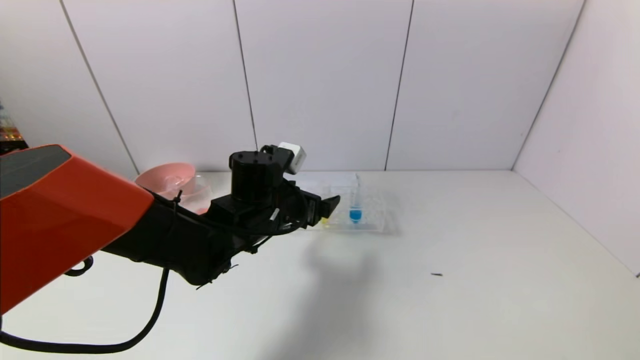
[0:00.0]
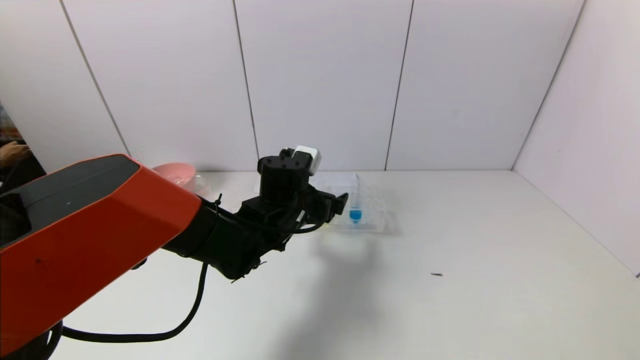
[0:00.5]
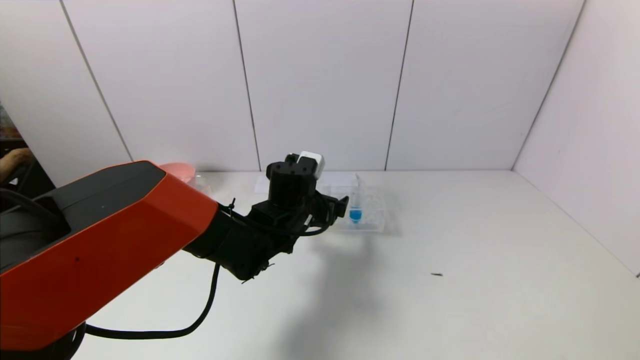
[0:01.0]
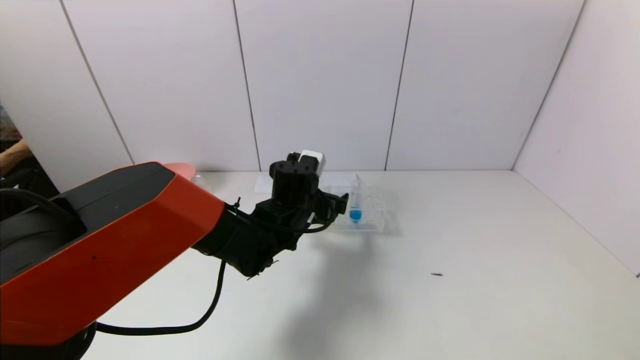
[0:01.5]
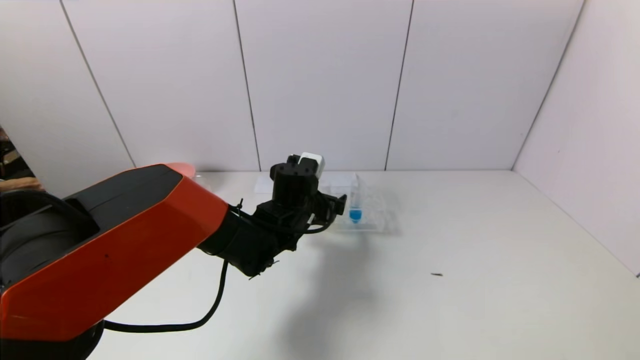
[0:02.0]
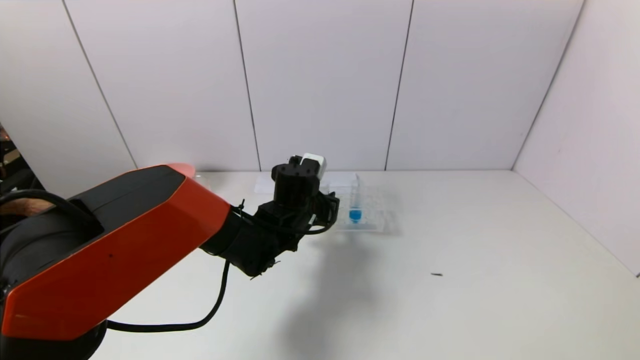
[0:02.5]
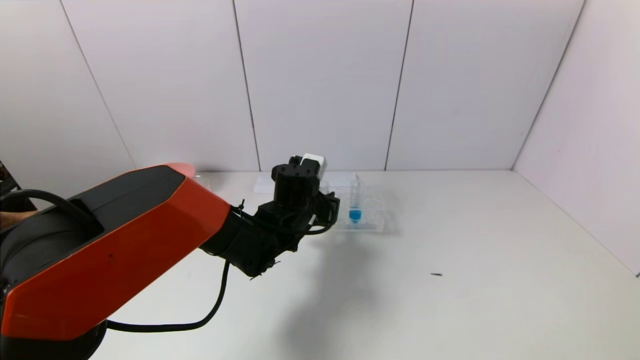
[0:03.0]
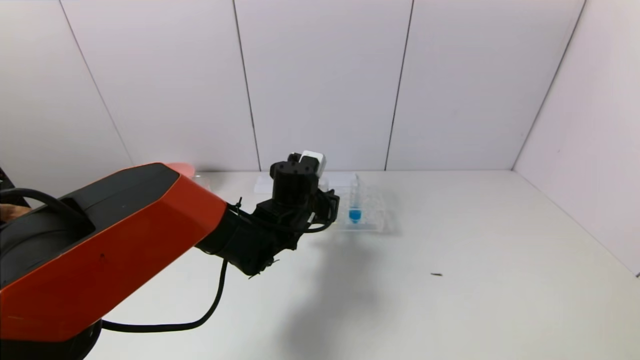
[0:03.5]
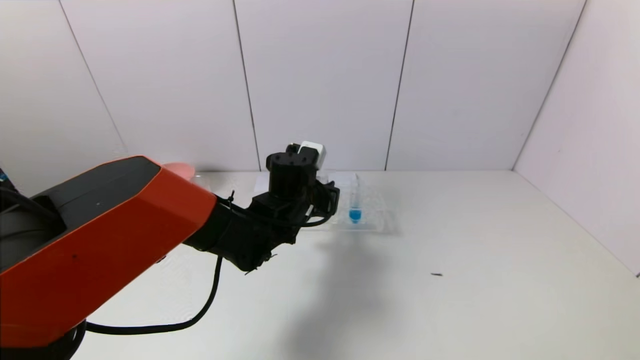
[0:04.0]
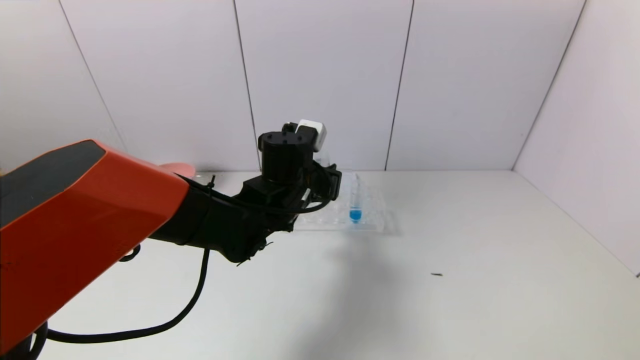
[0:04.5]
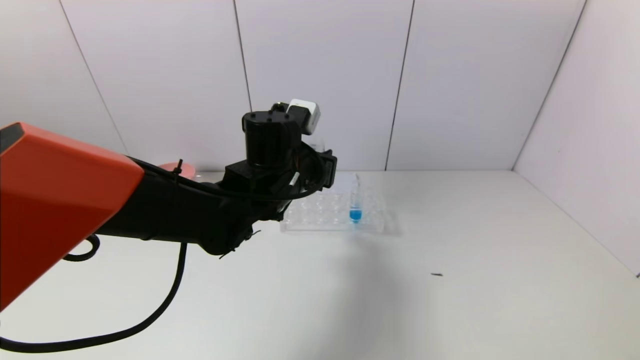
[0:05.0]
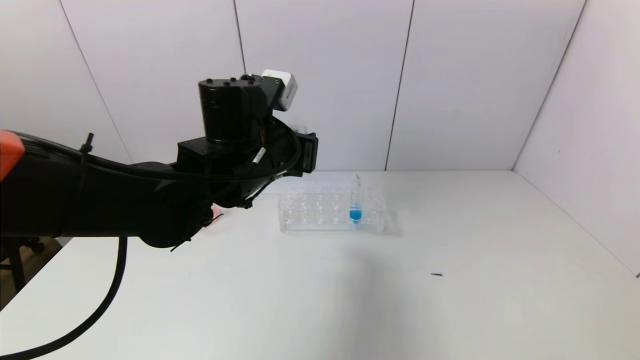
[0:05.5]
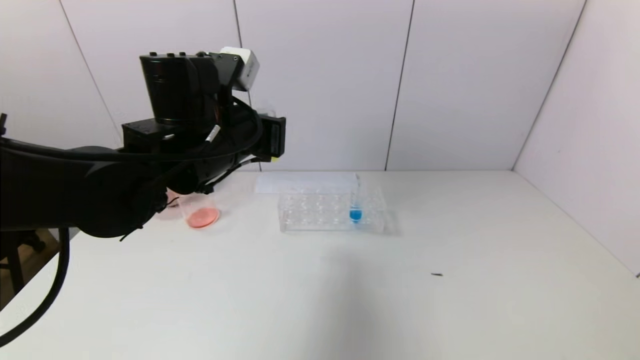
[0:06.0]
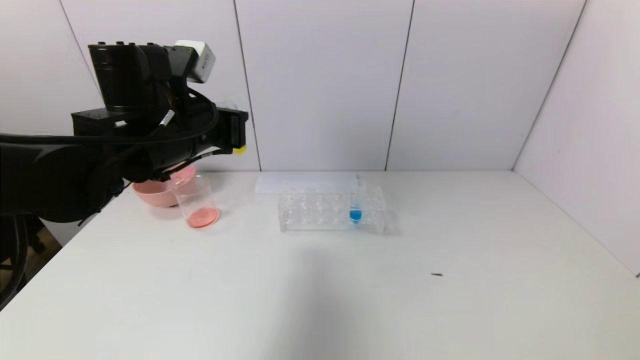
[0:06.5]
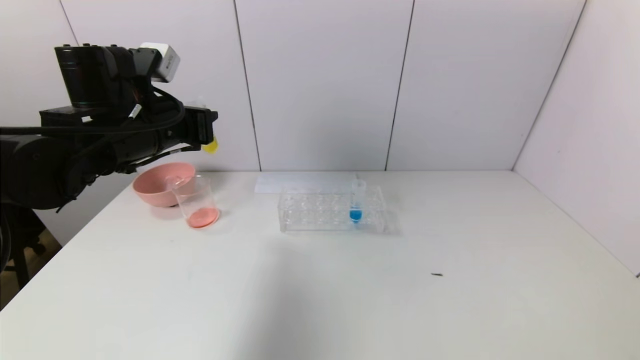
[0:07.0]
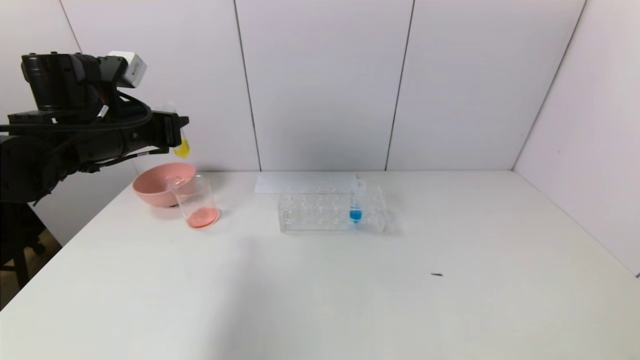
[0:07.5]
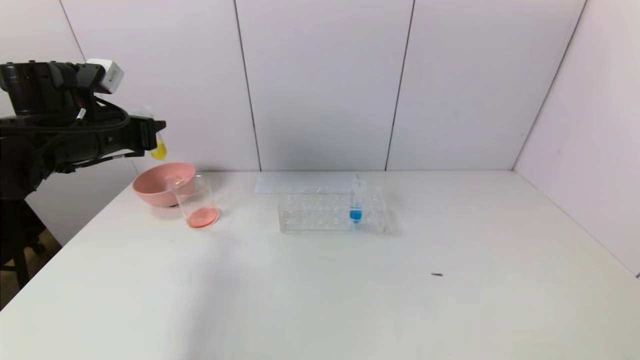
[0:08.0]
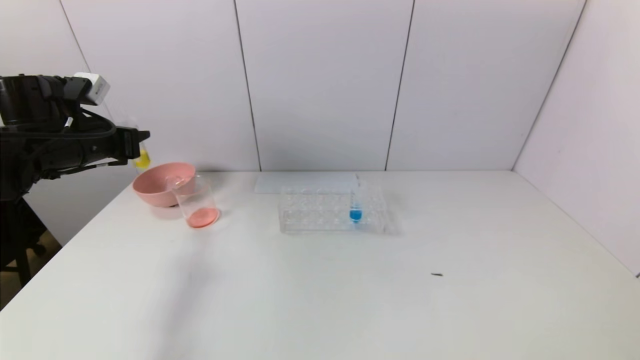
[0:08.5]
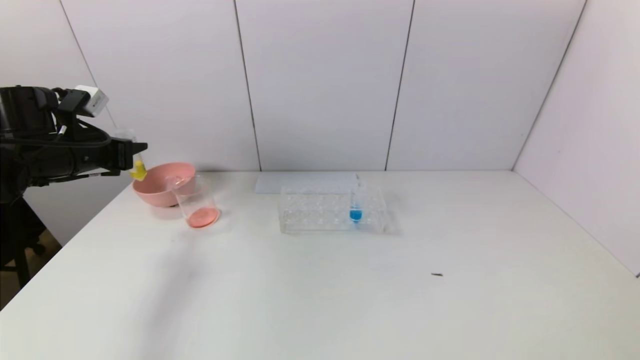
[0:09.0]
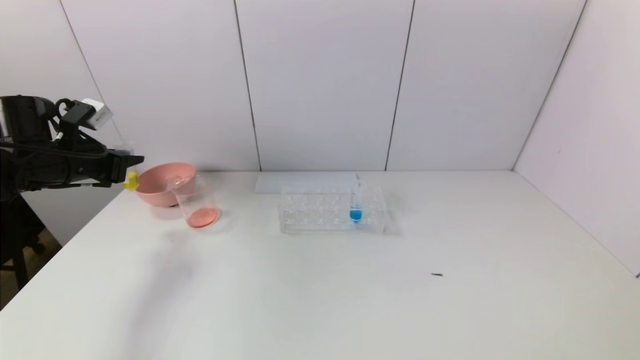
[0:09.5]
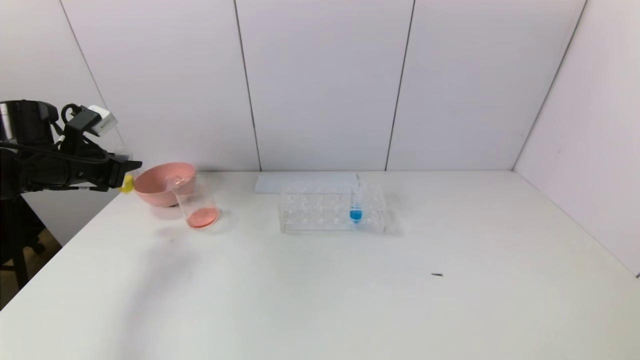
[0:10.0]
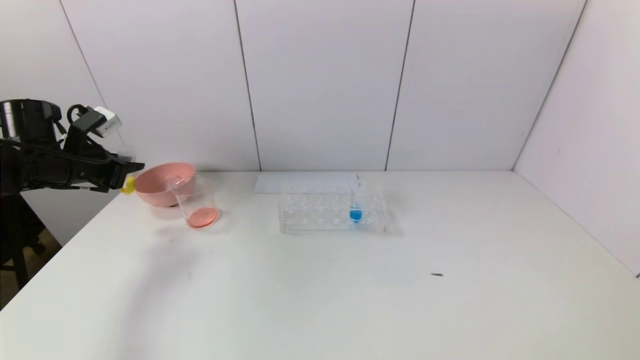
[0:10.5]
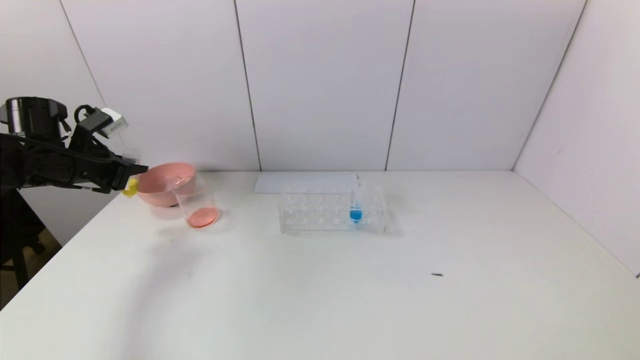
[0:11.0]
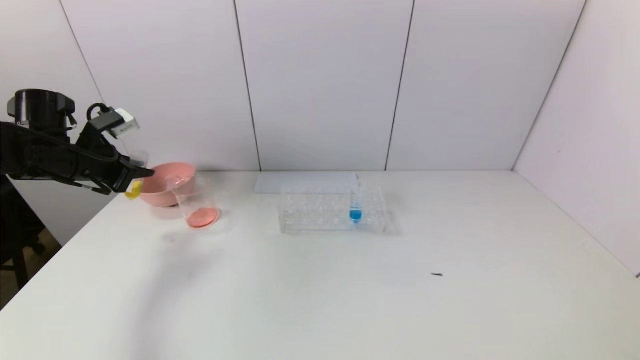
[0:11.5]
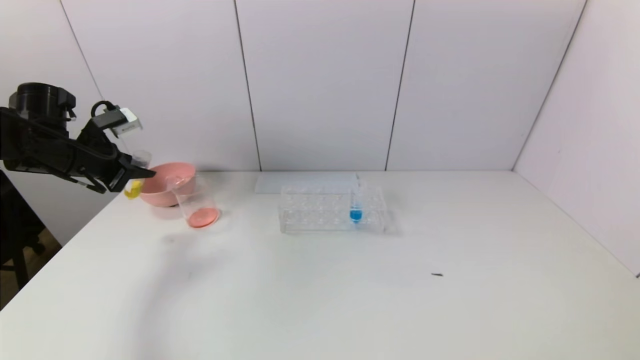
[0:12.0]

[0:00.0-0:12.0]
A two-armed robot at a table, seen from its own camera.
Task of the whole recording: pick up the test tube with yellow pigment and the test tube with red pigment by grippers and pour them into the beaker.
Step, 0:00.0 to 0:02.5: Grasp the yellow reagent with the left gripper.
0:00.0 to 0:02.0: The left gripper ends up approximately 5 cm from where it was.
0:02.0 to 0:04.0: The left gripper closes up.
0:04.0 to 0:06.0: The left gripper heads upward, to the left and backward, covering roughly 15 cm.
0:06.0 to 0:08.0: The left gripper travels to the left by about 20 cm.
0:08.0 to 0:10.0: The left gripper is displaced to the left and downward by about 10 cm.

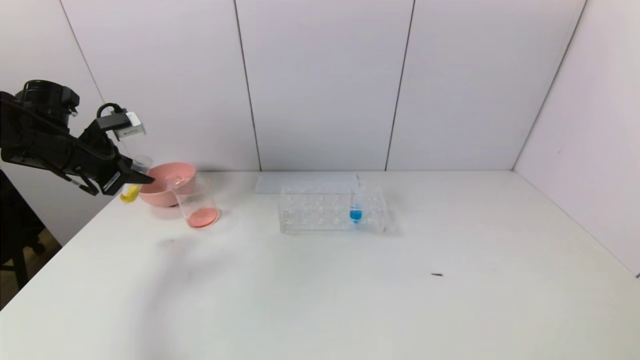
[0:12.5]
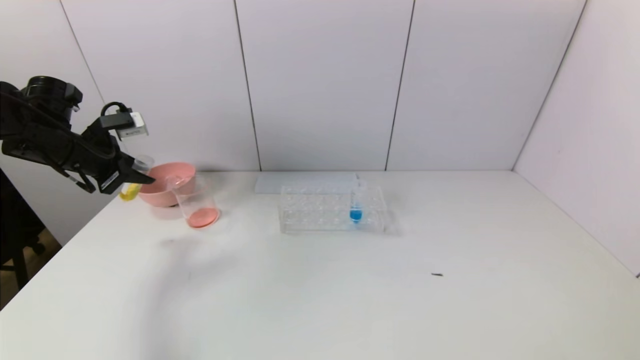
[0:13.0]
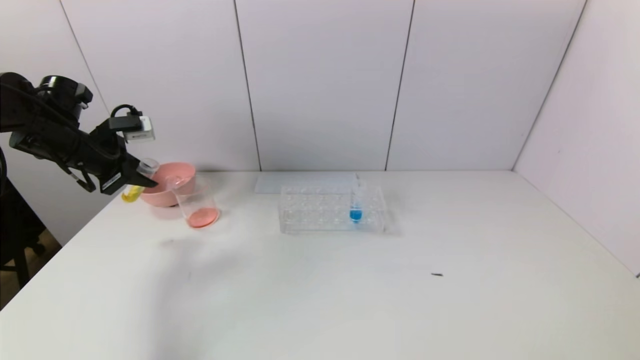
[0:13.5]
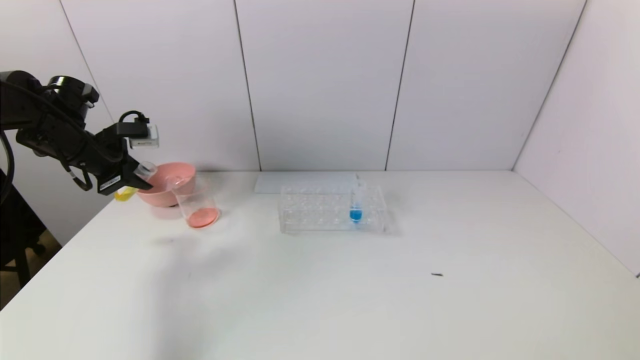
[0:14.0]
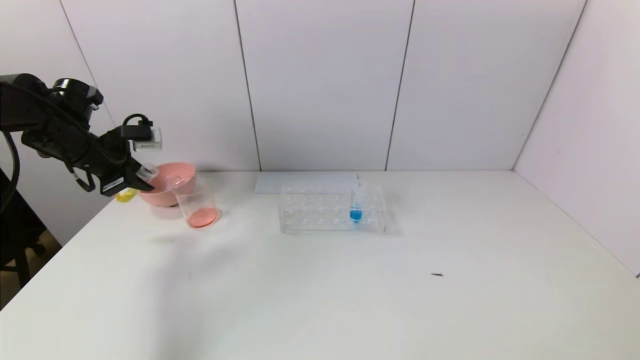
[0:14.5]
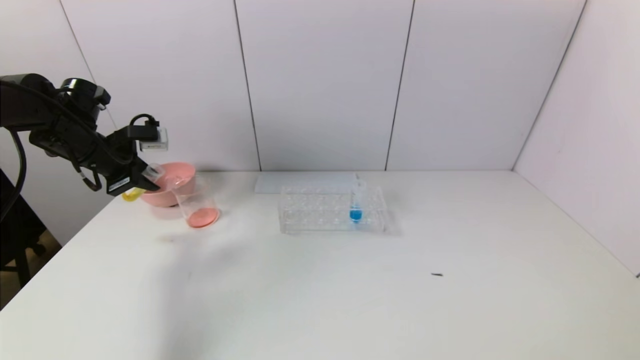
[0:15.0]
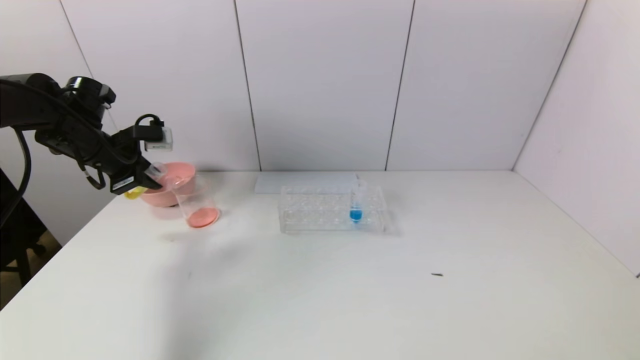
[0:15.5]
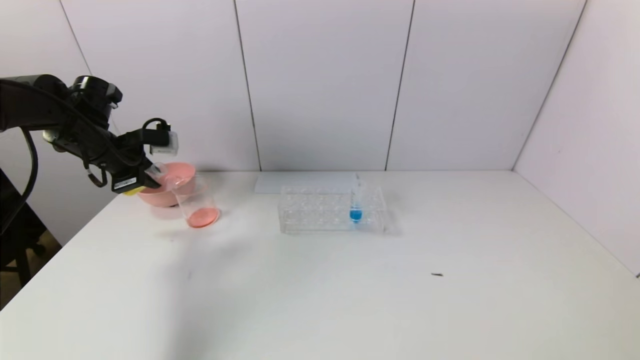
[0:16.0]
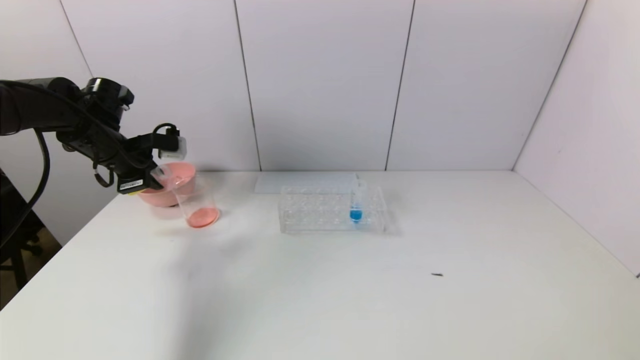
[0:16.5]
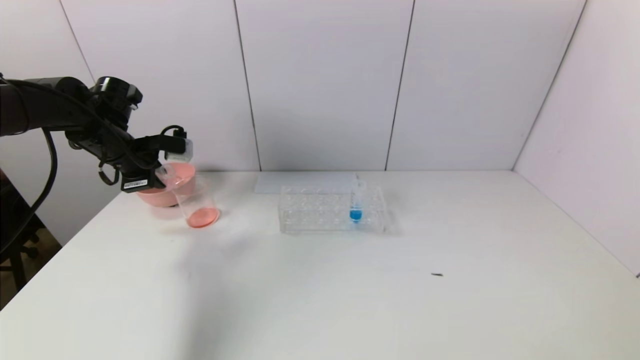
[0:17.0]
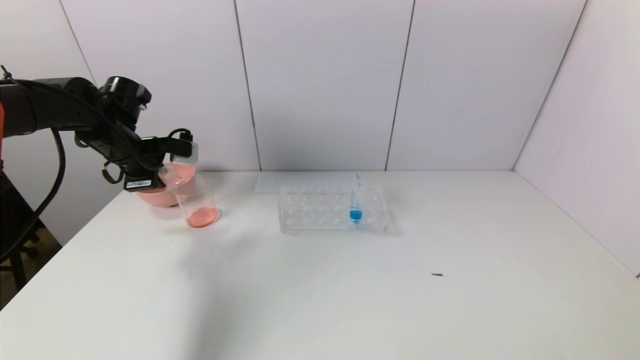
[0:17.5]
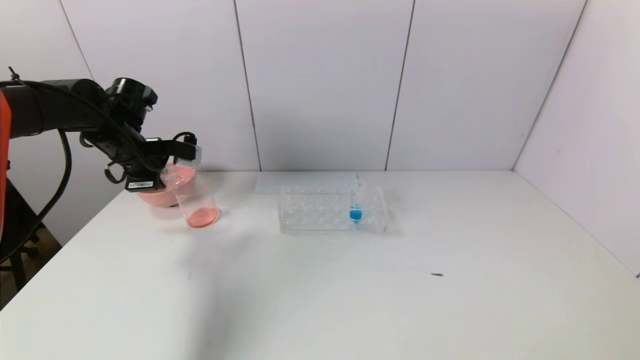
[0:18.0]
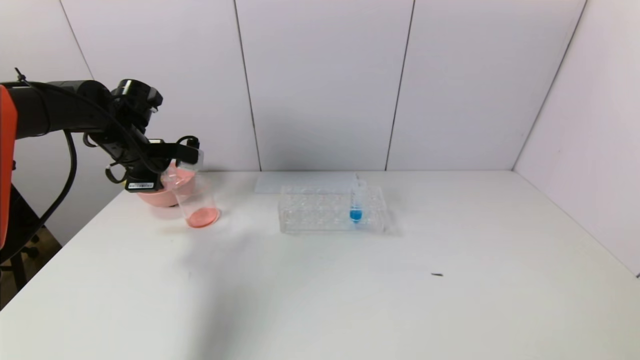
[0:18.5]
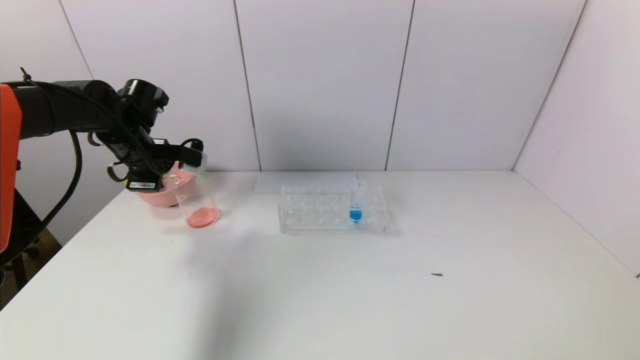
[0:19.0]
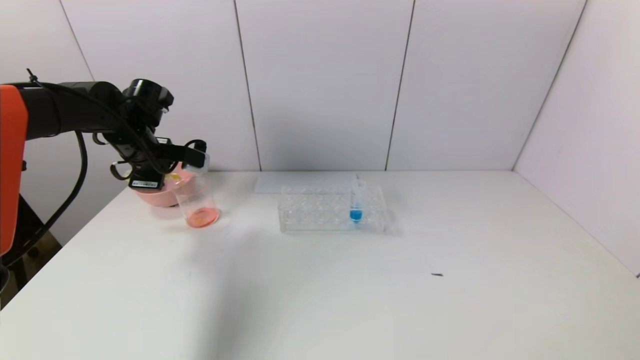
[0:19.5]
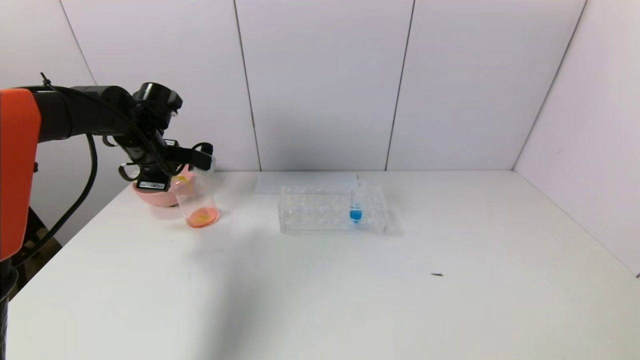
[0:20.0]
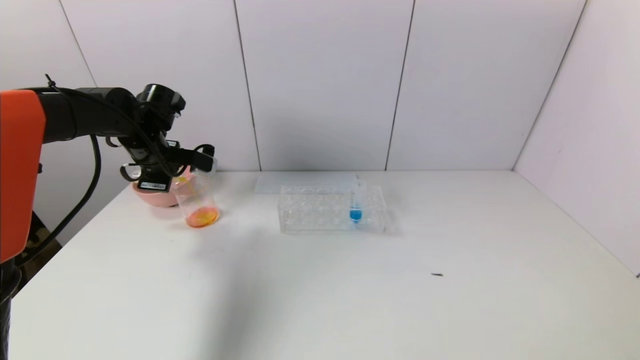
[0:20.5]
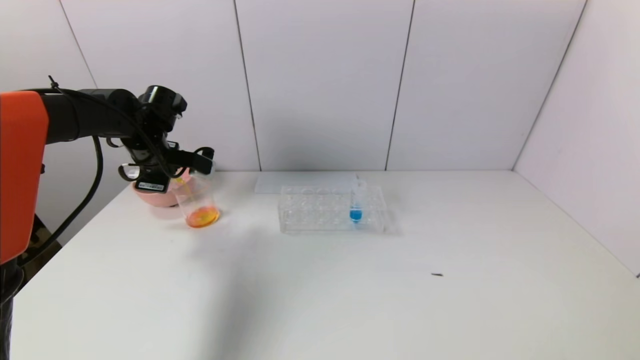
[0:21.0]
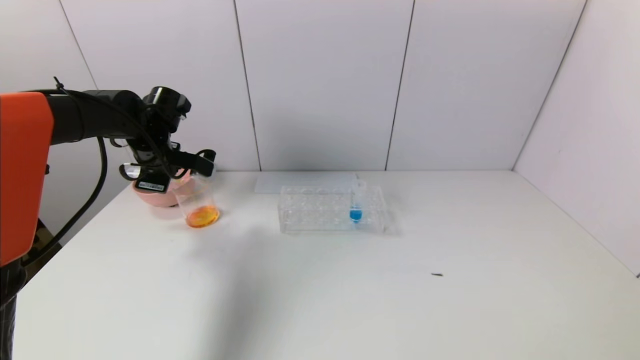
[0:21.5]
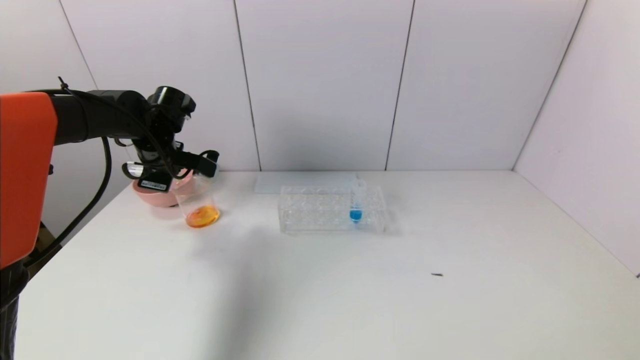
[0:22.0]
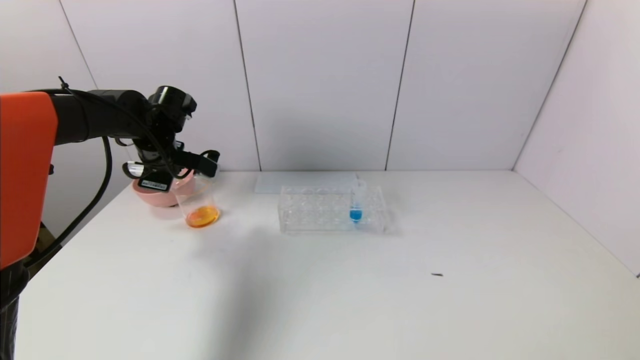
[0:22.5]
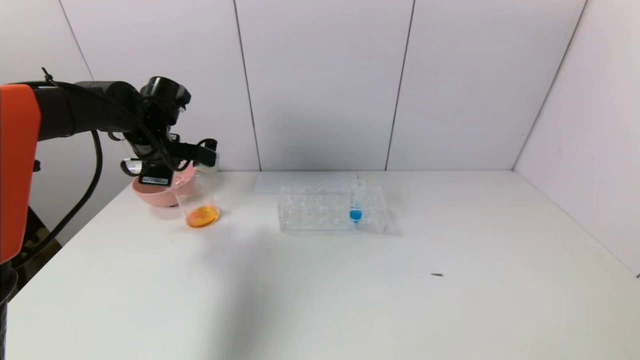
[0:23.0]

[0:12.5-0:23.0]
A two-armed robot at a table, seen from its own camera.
Task of the whole recording: pick up the test tube with yellow pigment and the test tube with red pigment by grippers and pour them into the beaker.
Step, 0:12.5 to 0:23.0: Pour the yellow reagent into the graduated cylinder with the left gripper.
0:12.5 to 0:14.5: The grippers make only small movements.
0:14.5 to 0:16.5: The grippers stay close to where they were, moving slightly.
0:16.5 to 0:19.0: The grippers stay close to where they were, moving slightly.
0:19.0 to 0:23.0: There are only small adjustments of the grippers.
